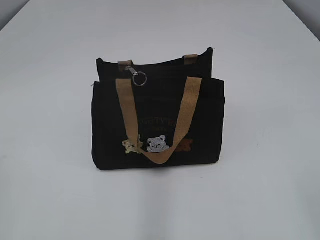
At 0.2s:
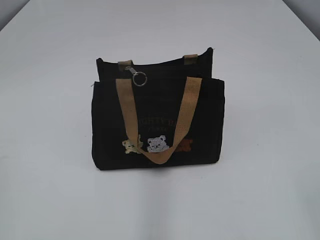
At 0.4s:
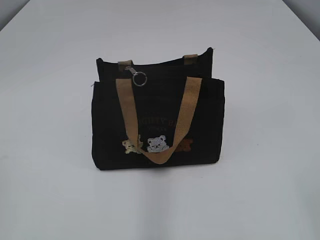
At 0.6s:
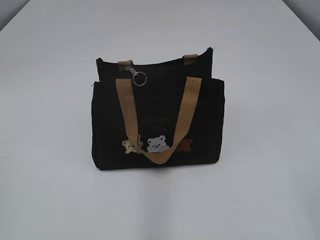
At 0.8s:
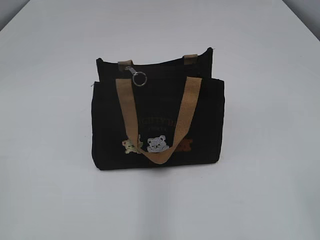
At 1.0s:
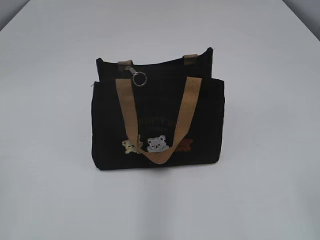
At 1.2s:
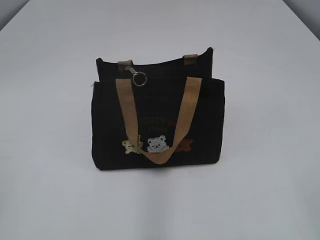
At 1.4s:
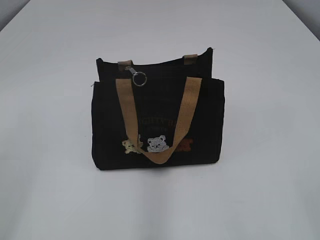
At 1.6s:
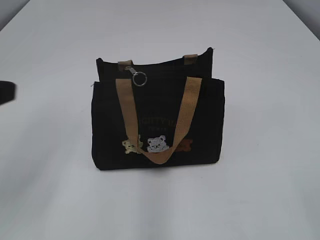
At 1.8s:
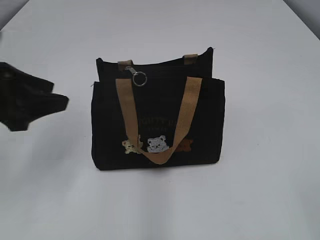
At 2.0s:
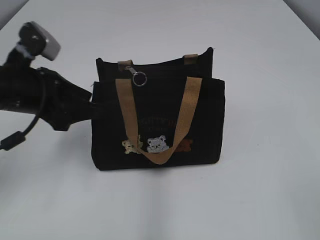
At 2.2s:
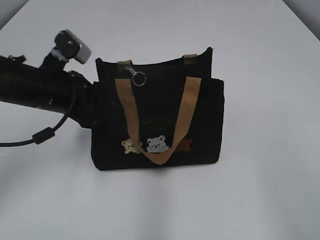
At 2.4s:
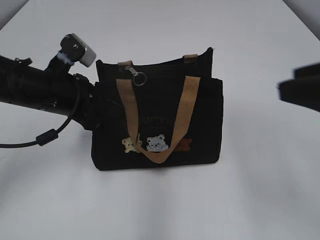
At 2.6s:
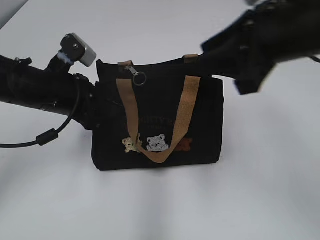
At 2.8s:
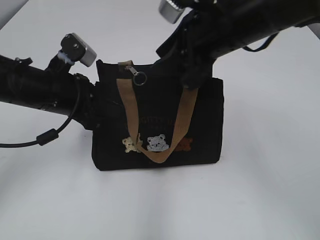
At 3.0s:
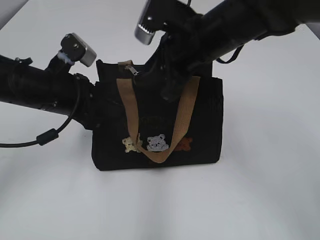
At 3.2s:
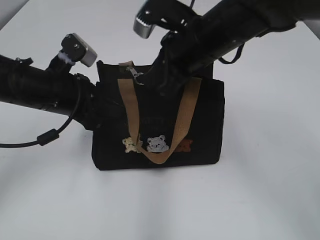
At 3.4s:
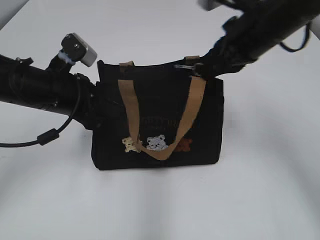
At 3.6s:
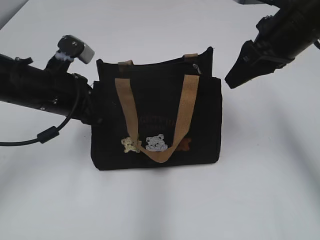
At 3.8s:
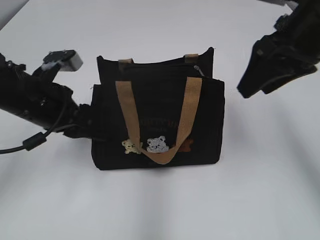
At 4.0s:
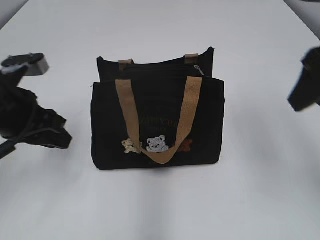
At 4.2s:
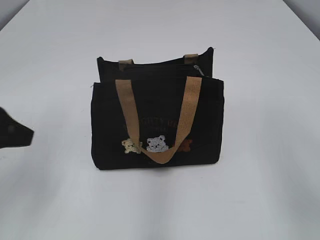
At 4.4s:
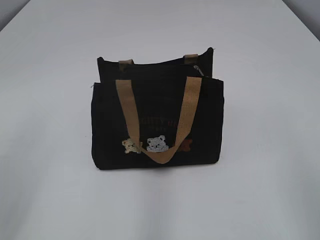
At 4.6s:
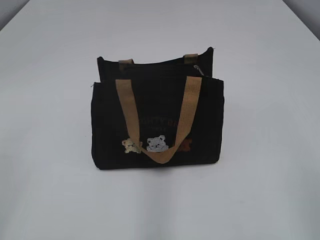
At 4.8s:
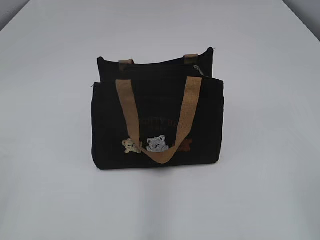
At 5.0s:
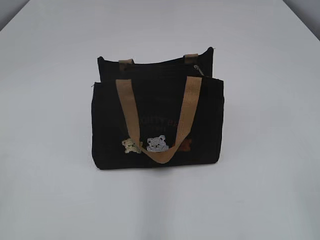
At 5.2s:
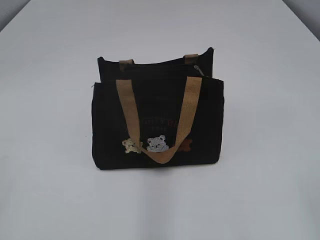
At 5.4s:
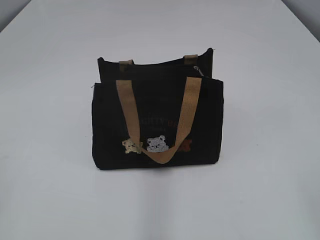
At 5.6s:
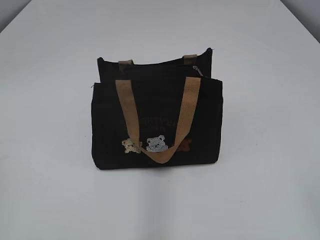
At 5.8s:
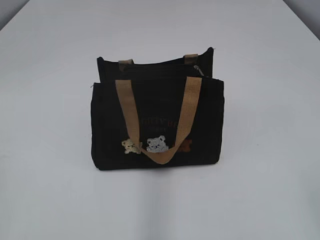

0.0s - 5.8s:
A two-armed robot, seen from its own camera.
Step, 0.0s - 3.4s: Pull open the zipper with your right hand.
1.4s - 2.8s: The right gripper moves forward and to the left, about 30 cm. The left gripper goes approximately 30 cm forward and to the right, and opens and closes again.
2.8s - 4.4s: The right gripper travels backward and to the right by roughly 20 cm, and closes, then opens again, while the left gripper goes some 15 cm backward, to the left and upward, and opens.
4.4s - 5.8s: The left gripper shifts about 15 cm backward.

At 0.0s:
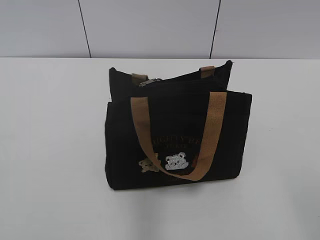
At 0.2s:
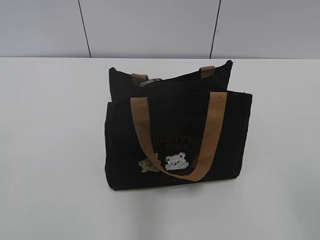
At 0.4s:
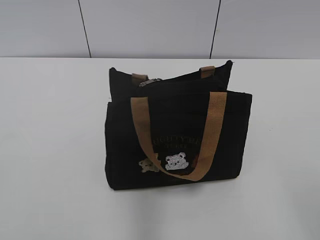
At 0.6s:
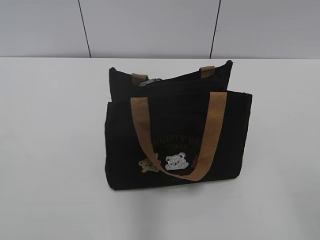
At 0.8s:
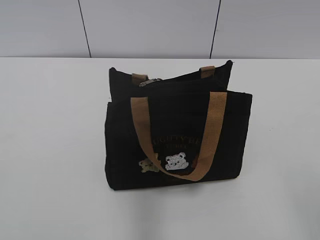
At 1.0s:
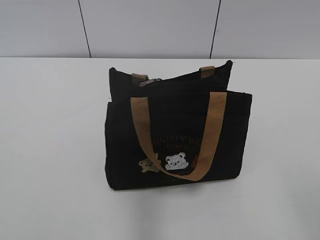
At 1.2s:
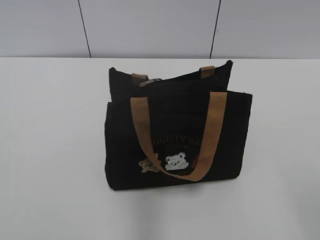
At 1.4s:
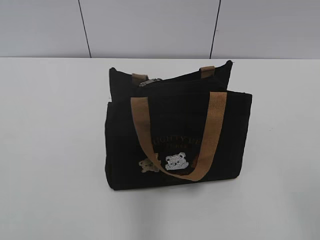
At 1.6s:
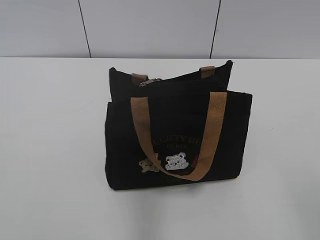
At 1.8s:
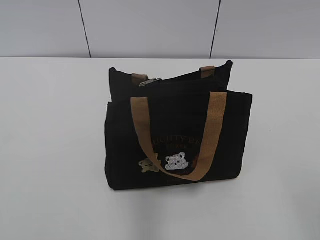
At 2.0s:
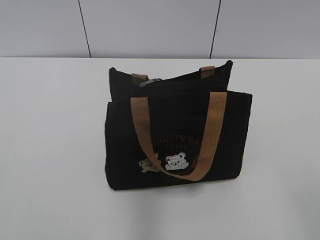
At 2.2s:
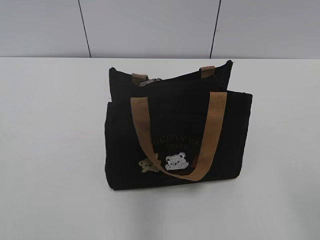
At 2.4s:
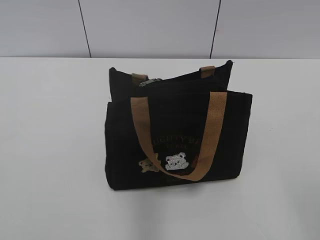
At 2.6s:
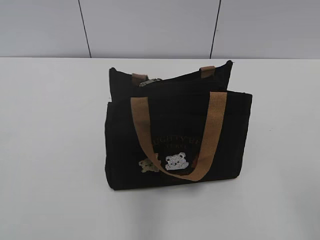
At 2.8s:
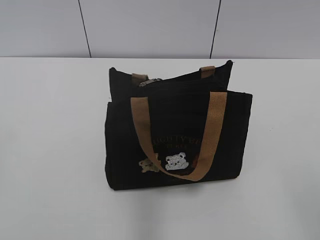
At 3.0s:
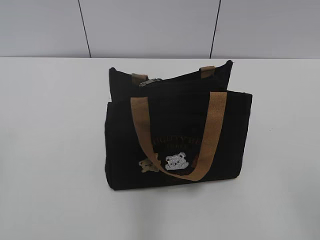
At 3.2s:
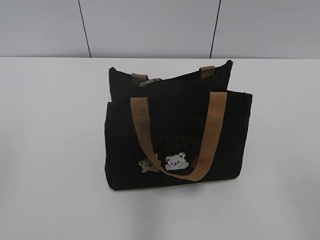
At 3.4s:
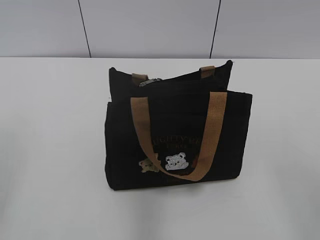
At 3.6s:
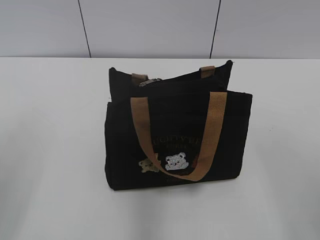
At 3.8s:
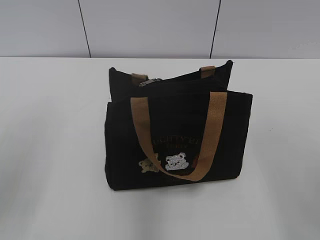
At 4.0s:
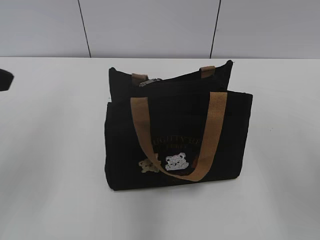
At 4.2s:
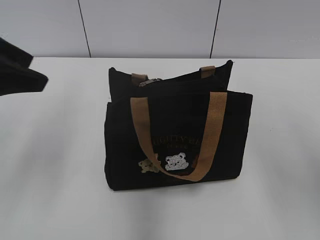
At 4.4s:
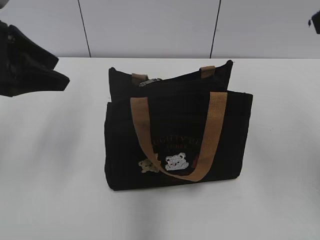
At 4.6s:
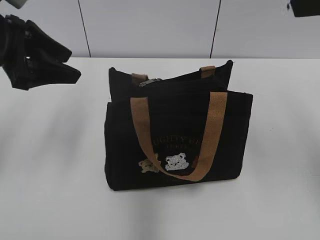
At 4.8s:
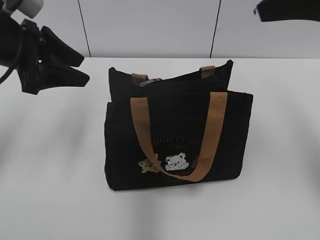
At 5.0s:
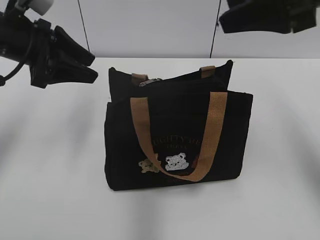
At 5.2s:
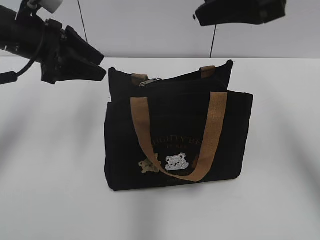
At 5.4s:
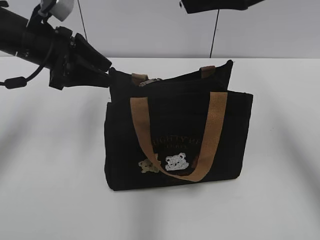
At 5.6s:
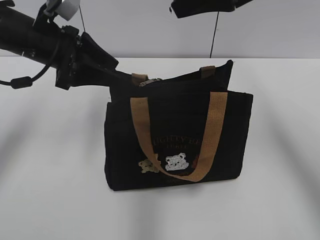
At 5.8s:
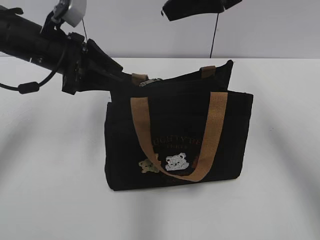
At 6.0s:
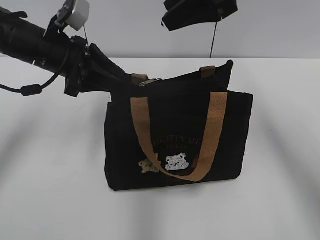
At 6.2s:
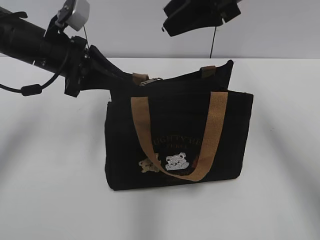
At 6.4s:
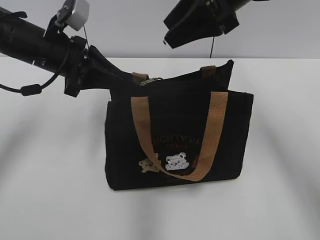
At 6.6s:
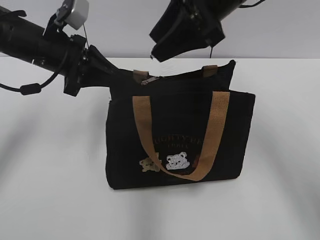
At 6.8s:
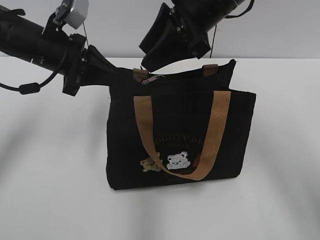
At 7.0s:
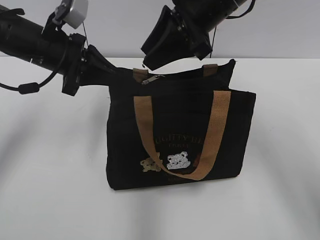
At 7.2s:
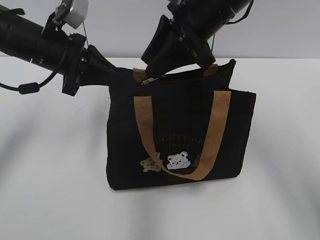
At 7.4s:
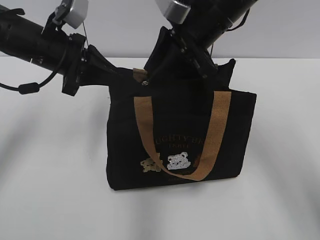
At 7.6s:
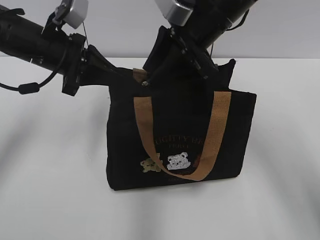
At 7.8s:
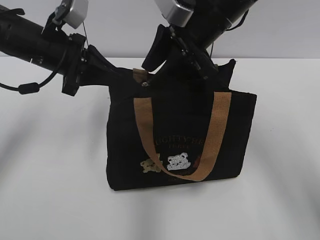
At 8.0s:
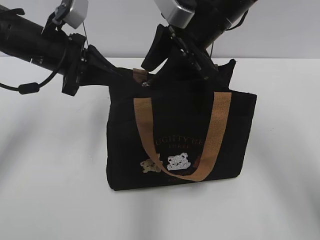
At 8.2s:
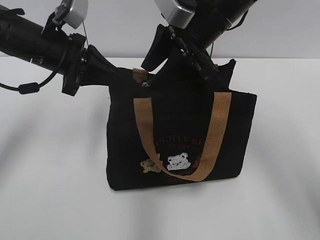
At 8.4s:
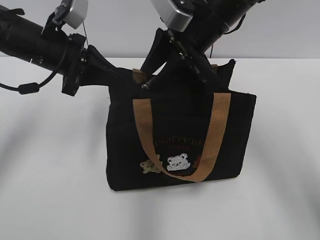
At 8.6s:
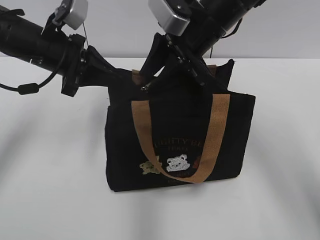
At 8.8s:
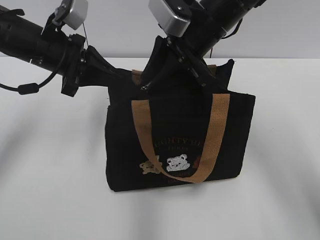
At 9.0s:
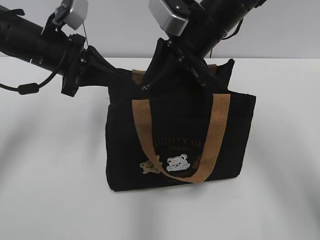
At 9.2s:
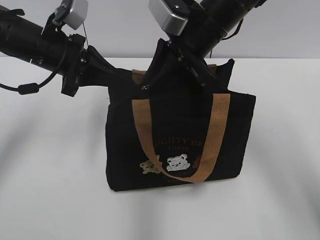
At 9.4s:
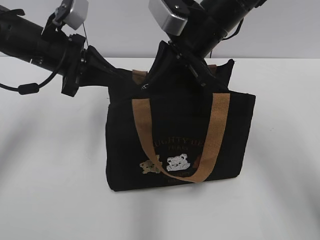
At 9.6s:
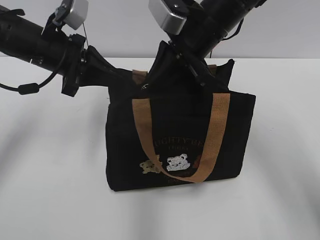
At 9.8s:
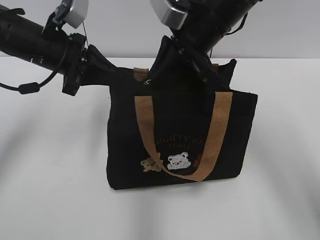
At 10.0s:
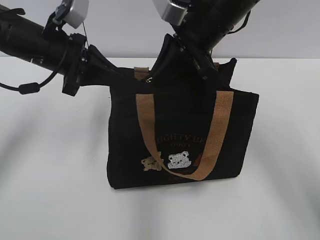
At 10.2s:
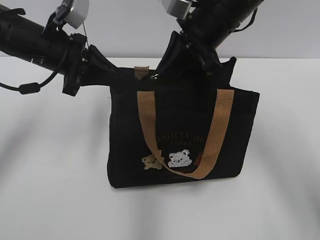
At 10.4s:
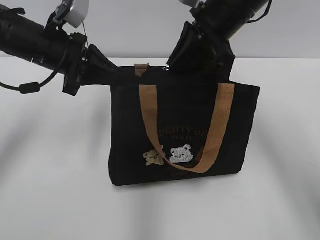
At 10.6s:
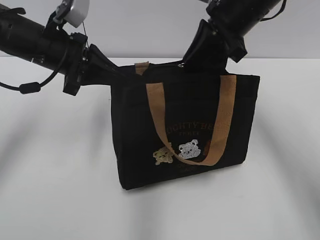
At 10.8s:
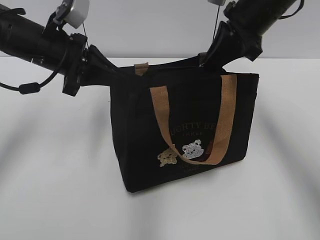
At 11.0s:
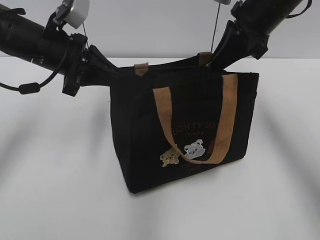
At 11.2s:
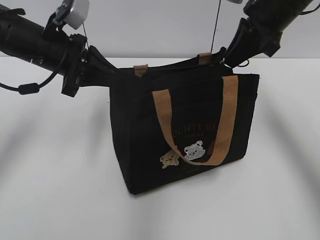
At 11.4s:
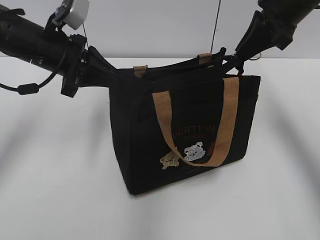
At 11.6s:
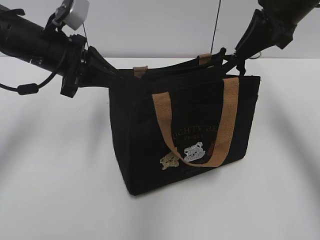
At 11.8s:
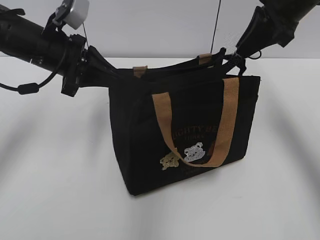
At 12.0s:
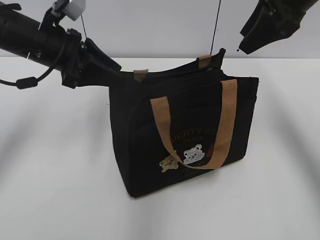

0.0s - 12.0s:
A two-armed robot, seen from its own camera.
Step, 0.0s - 11.8s: Pull open the zipper with your right hand.
3.0s - 4.4s: The right gripper is displaced forward and upward by roughly 25 cm; the left gripper is displaced forward by approximately 25 cm, and opens up.
4.4s - 6.0s: The right gripper travels forward and to the left by roughly 20 cm. Meanwhile the left gripper heads forward, downward and to the right, covering roughly 15 cm.
6.0s - 7.6s: The left gripper closes up. The right gripper heads downward, covering about 5 cm.
7.6s - 9.0s: The grippers stay close to where they were, moving slightly.
9.0s - 10.4s: The right gripper closes its fingers.
10.4s - 12.0s: The right gripper moves to the right, approximately 10 cm, and opens up. Meanwhile the left gripper opens.

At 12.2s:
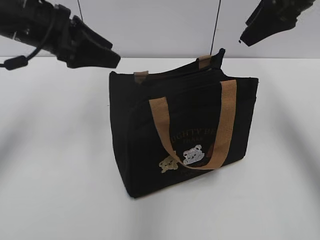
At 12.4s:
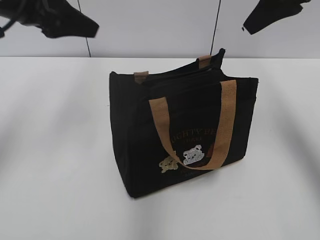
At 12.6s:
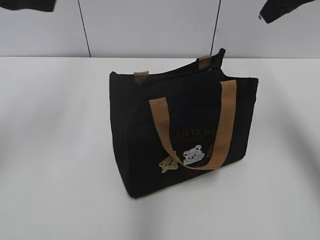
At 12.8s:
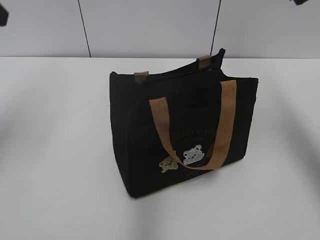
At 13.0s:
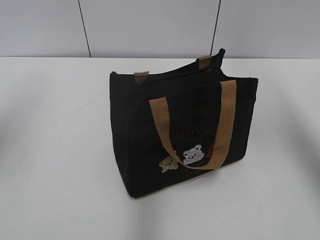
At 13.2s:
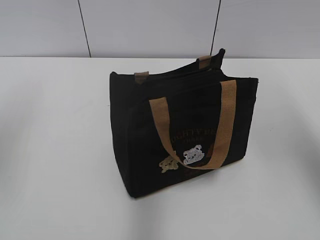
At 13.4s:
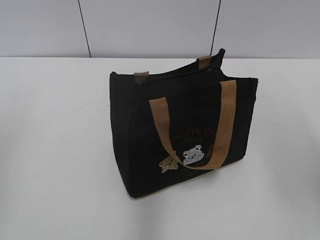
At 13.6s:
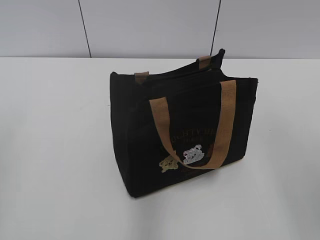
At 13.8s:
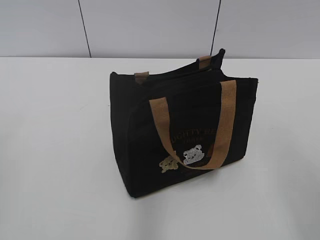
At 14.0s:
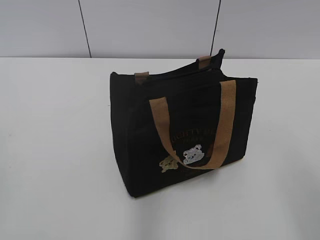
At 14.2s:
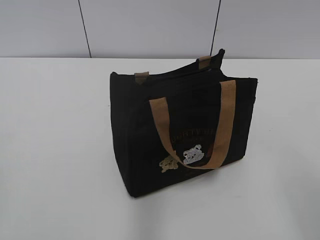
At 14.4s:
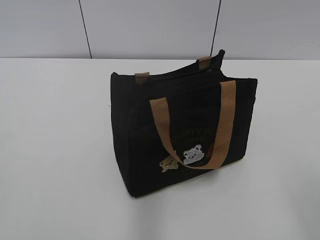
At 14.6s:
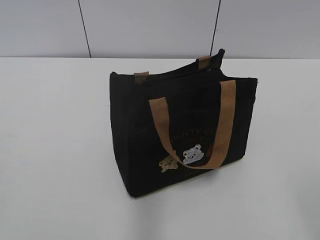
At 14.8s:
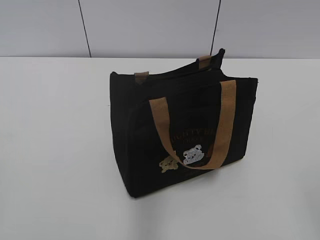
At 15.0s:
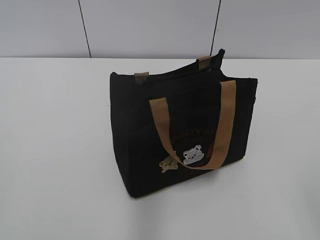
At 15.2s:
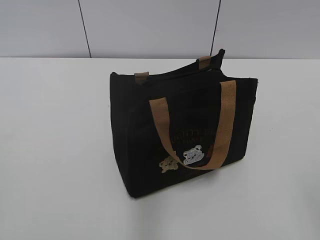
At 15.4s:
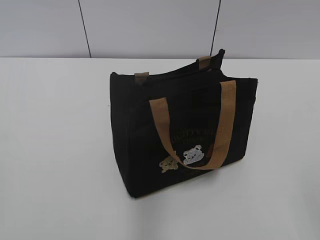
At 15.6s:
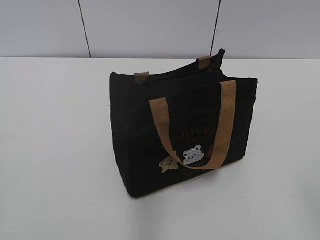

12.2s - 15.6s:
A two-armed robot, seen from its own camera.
12.2s - 13.8s: The right gripper goes some 30 cm backward. Meanwhile the left gripper goes roughly 30 cm backward and to the left.

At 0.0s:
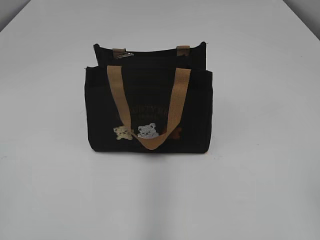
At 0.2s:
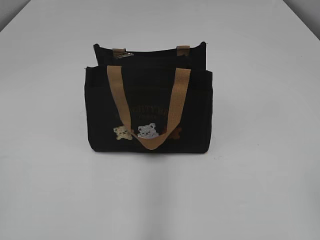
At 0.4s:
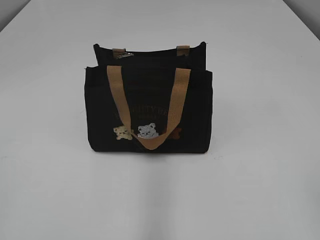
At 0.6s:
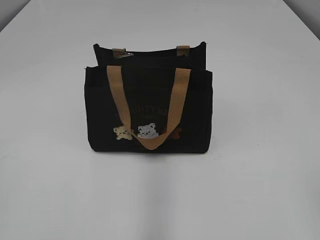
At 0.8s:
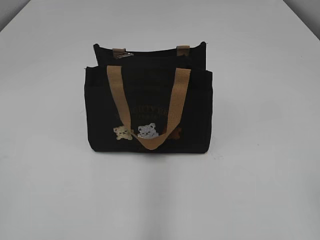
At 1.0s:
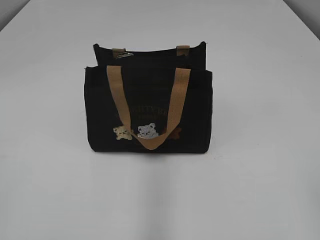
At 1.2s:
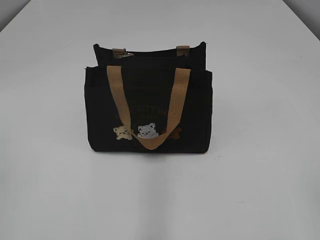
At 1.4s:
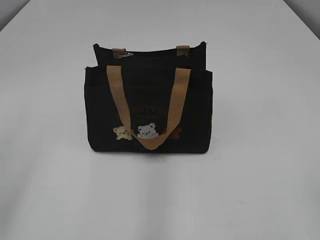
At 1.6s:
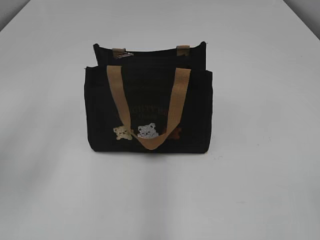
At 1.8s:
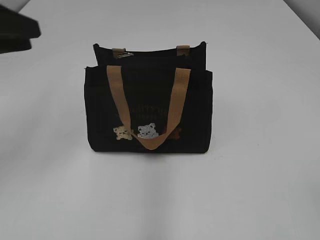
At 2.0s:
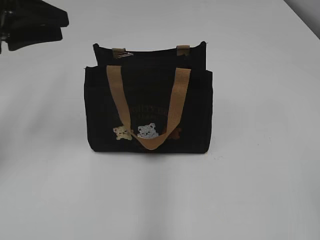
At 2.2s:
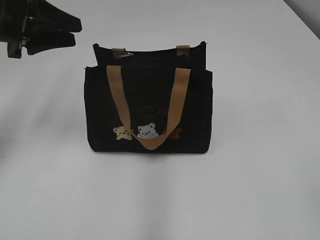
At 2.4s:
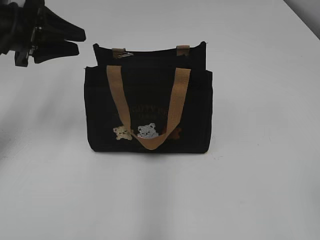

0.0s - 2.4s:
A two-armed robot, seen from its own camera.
1.2s - 2.4s: The left gripper moves forward, about 35 cm, and opens up.
